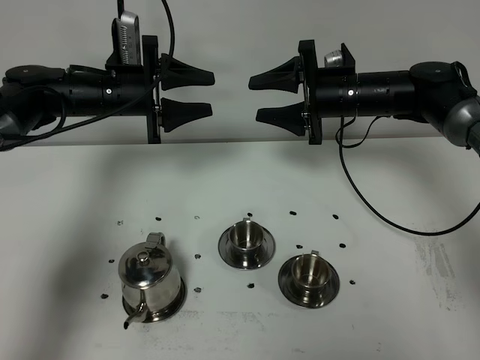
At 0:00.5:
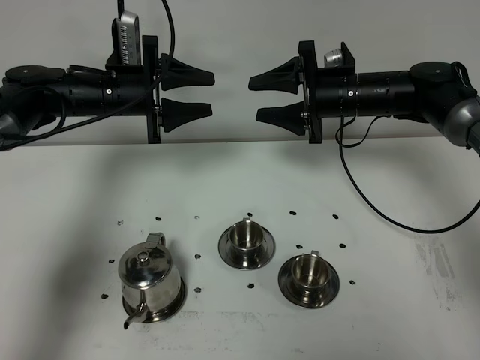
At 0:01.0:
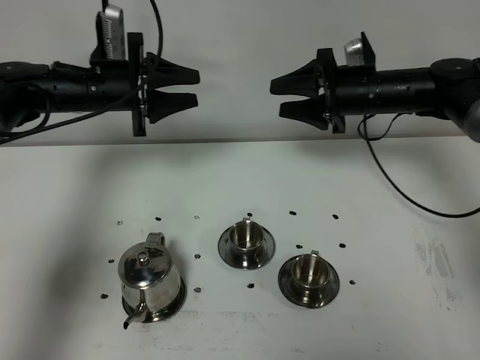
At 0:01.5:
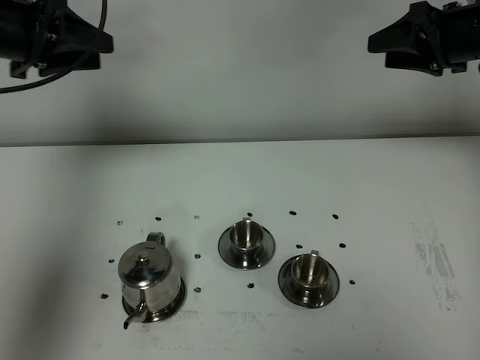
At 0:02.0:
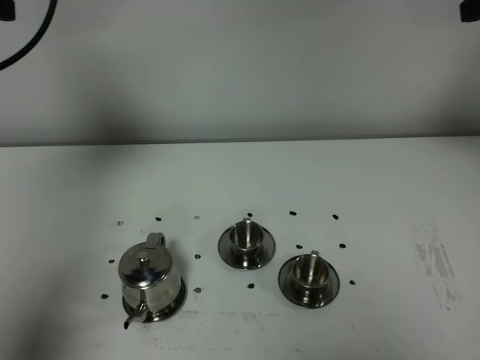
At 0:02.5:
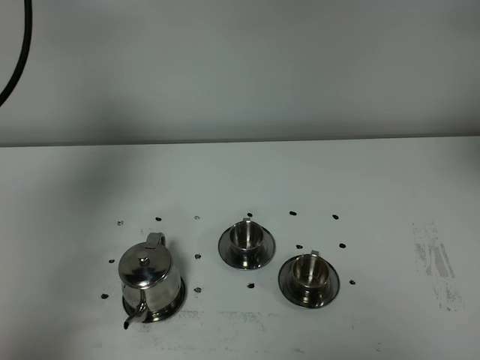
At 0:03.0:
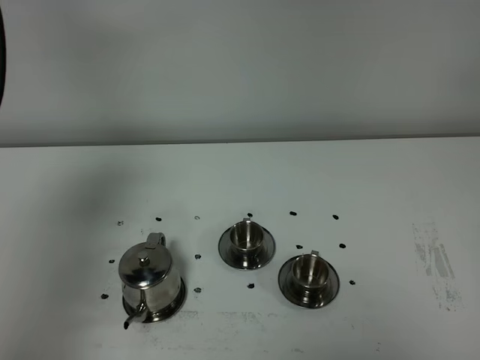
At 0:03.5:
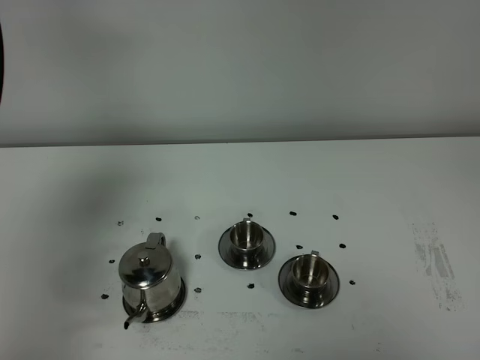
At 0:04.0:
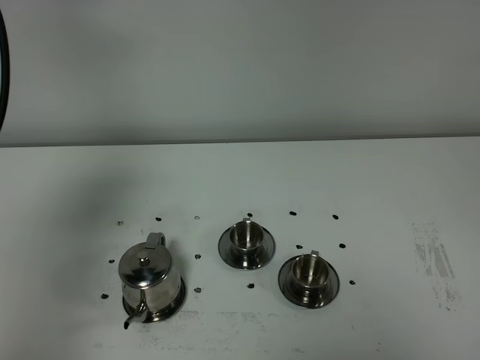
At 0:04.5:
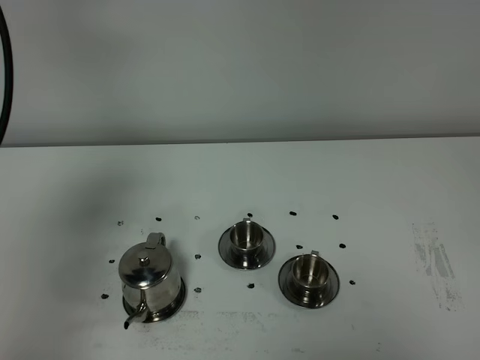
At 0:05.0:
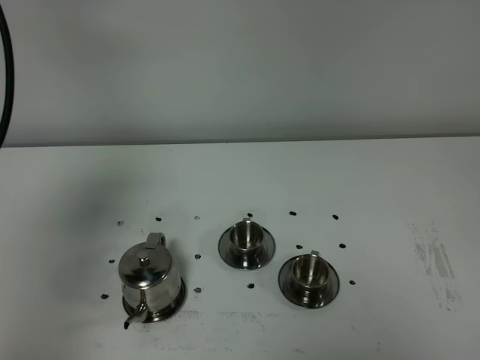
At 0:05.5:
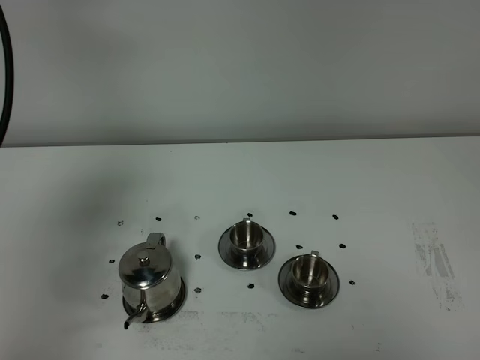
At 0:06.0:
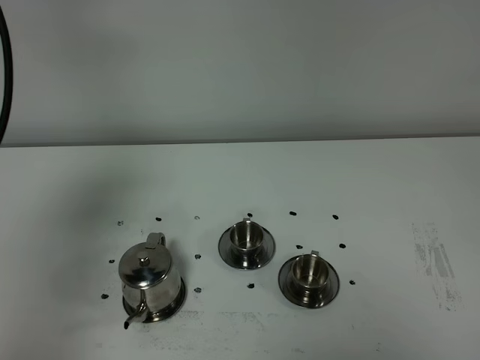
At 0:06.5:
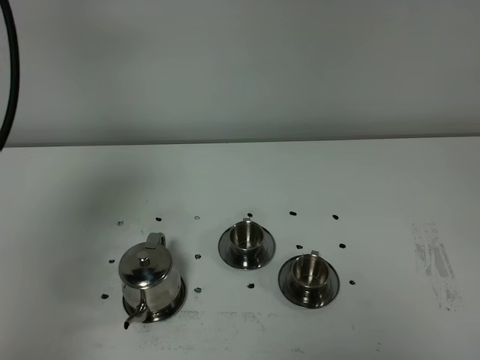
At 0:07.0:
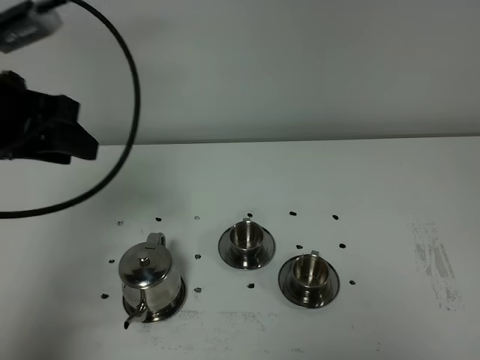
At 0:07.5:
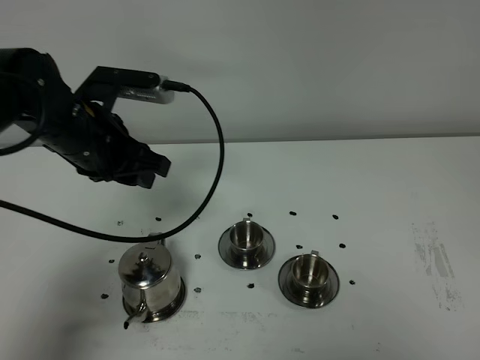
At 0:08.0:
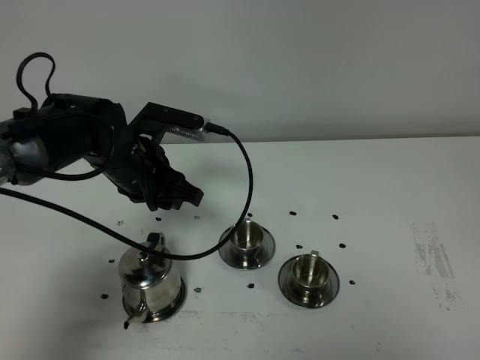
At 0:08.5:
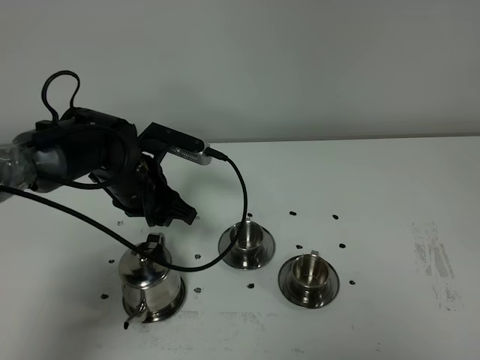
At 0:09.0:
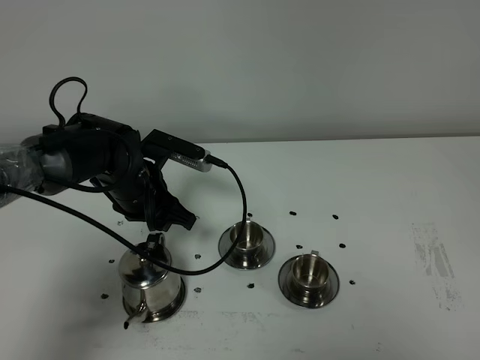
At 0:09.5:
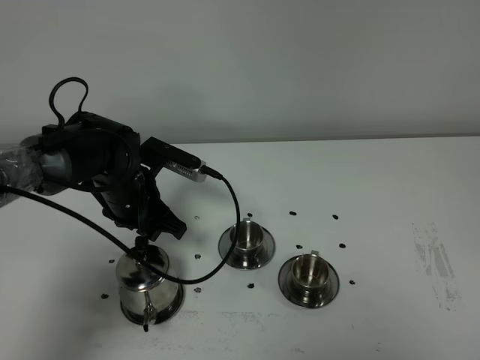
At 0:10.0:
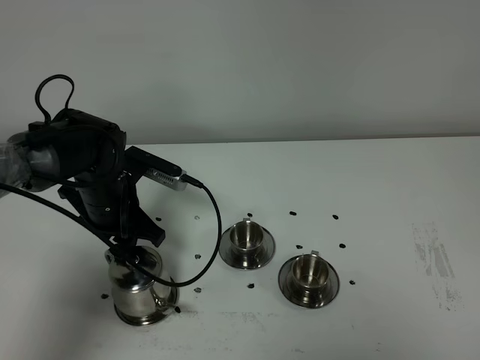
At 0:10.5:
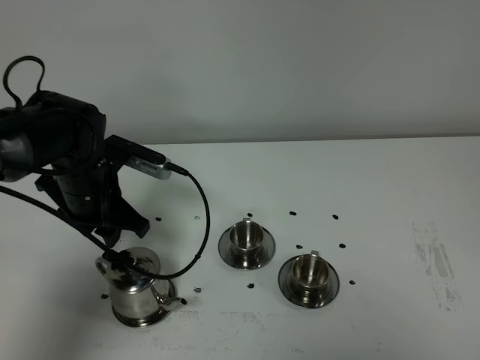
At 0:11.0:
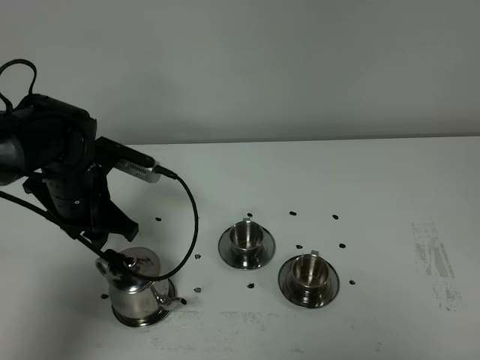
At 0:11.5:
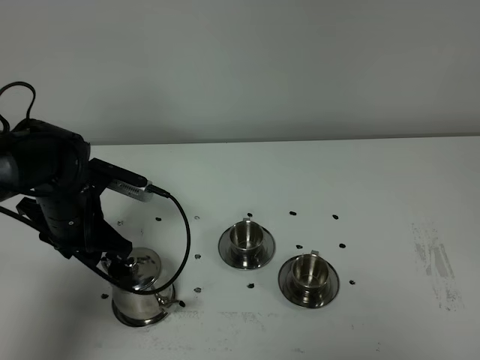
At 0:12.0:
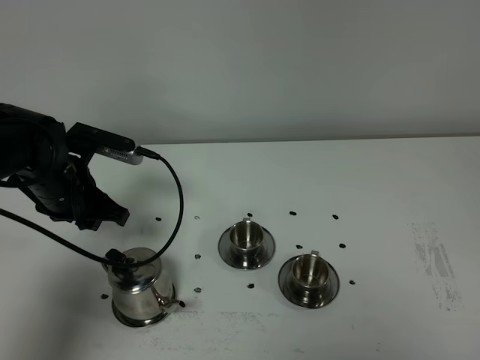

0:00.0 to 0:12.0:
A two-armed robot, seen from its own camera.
Task of the whole recording: grasp the stainless steel teapot and pour the tea into the two stainless steel teacups one by one, put the stainless steel teapot back in its original place.
0:00.0 to 0:02.0: The left gripper travels upward, backward and to the left by roughly 30 cm. The right gripper heads upward, to the right and backward, covering about 30 cm.
0:02.0 to 0:04.0: The left gripper goes about 15 cm backward, while the right gripper shifts roughly 40 cm backward.
0:06.0 to 0:08.0: The left gripper moves downward, forward and to the right, approximately 35 cm.
0:08.0 to 0:10.0: The left gripper changes place by approximately 5 cm.
0:10.0 to 0:12.0: The left gripper shifts by roughly 5 cm.

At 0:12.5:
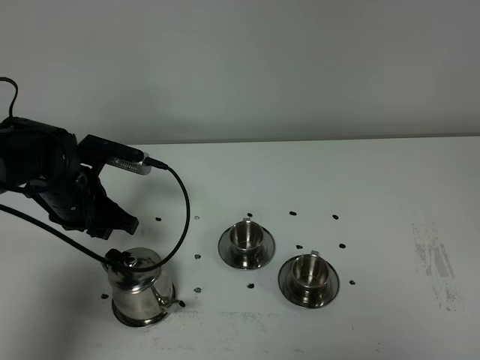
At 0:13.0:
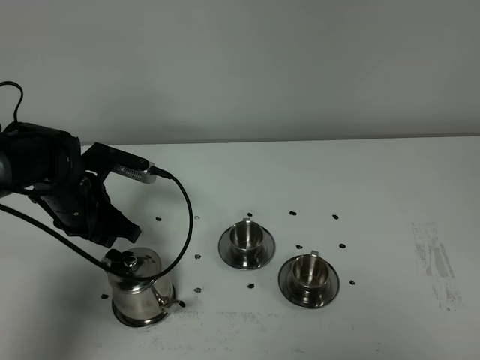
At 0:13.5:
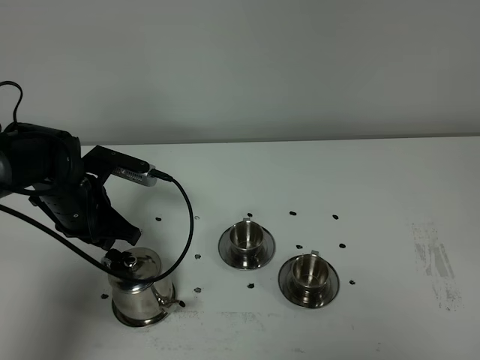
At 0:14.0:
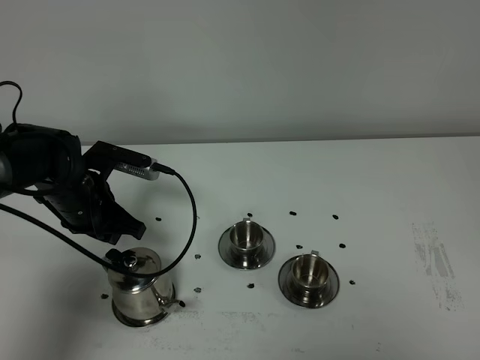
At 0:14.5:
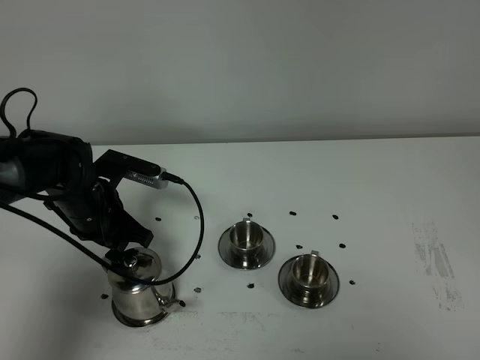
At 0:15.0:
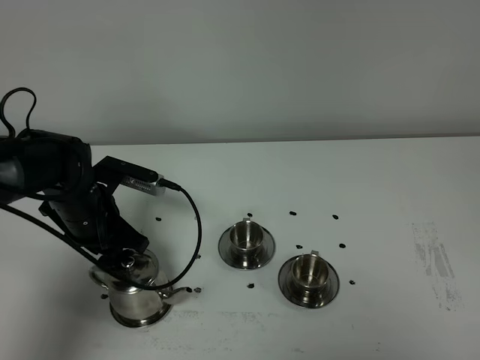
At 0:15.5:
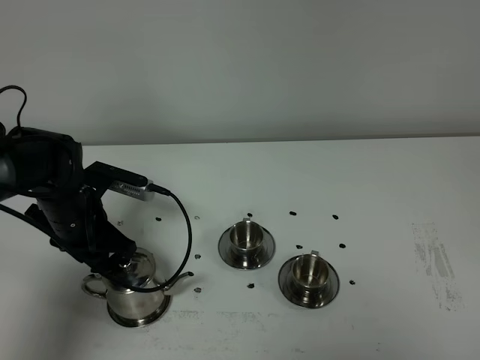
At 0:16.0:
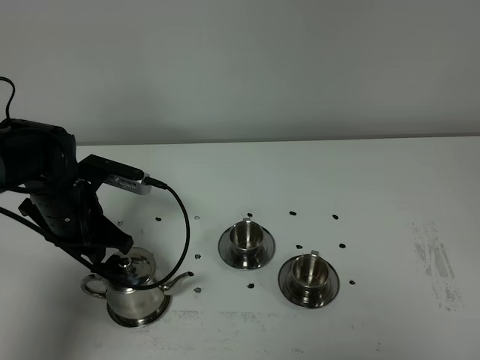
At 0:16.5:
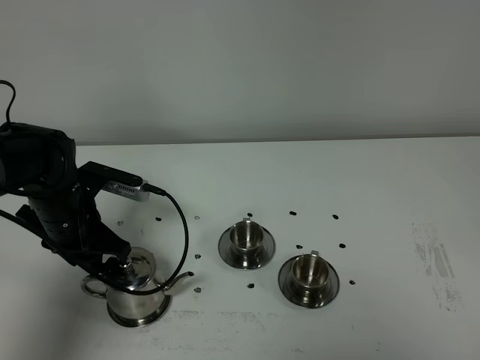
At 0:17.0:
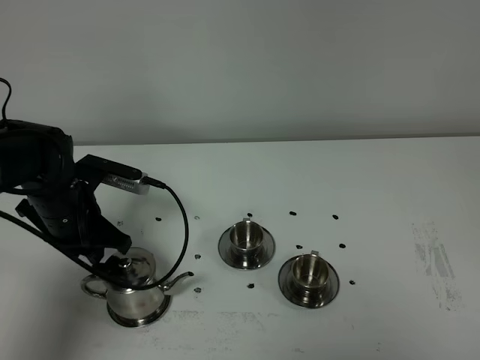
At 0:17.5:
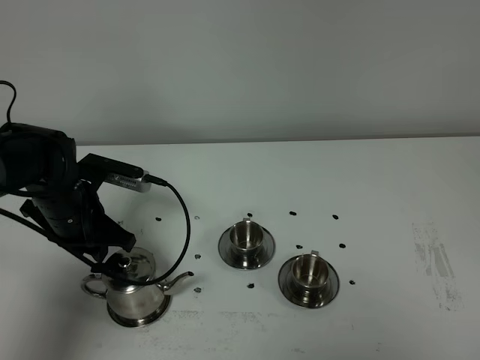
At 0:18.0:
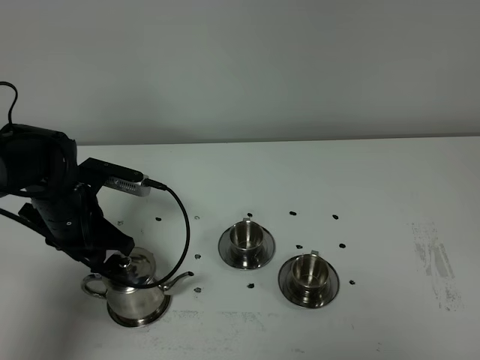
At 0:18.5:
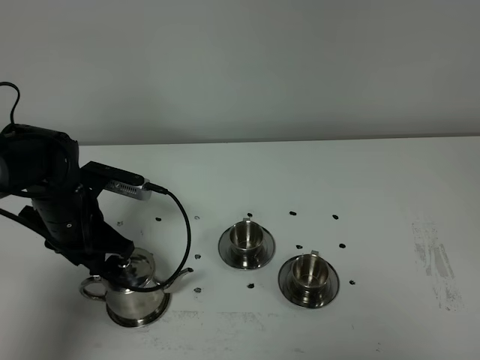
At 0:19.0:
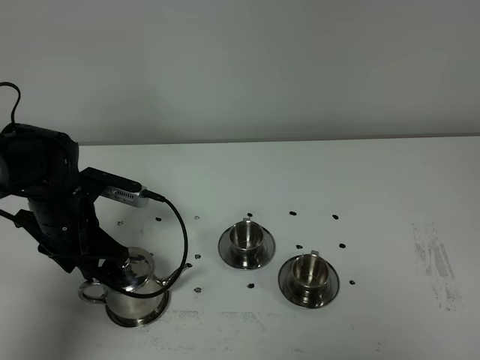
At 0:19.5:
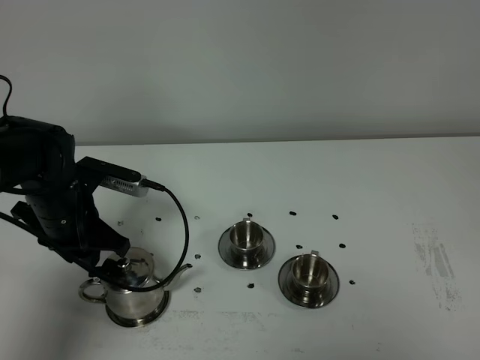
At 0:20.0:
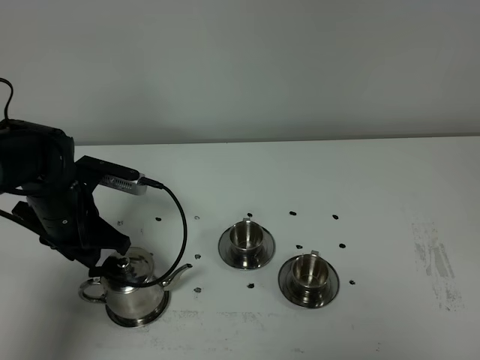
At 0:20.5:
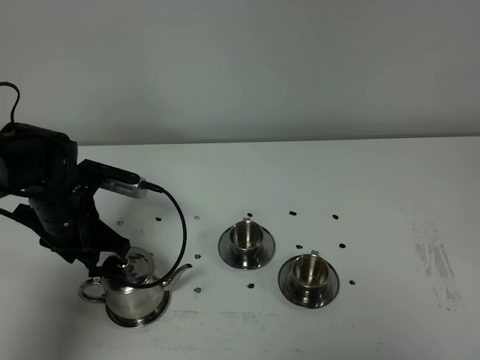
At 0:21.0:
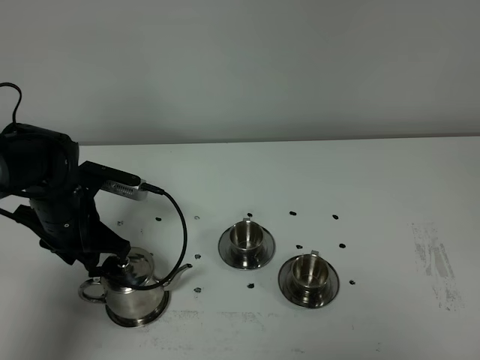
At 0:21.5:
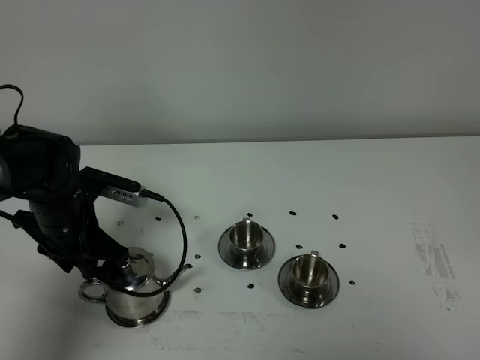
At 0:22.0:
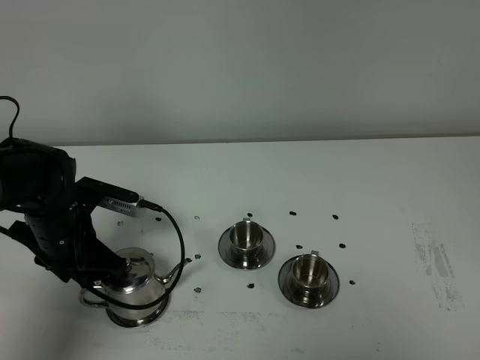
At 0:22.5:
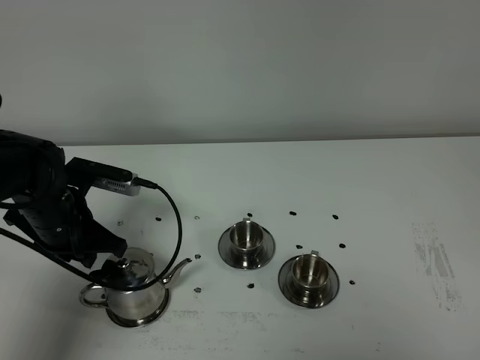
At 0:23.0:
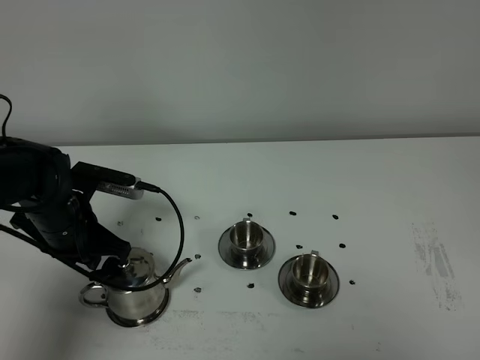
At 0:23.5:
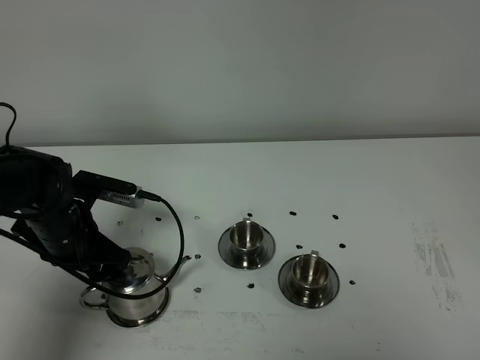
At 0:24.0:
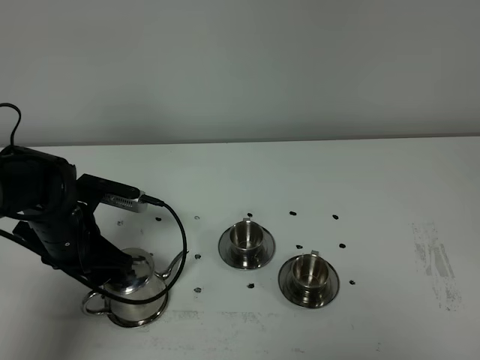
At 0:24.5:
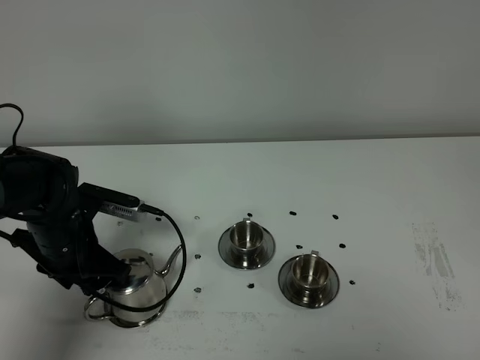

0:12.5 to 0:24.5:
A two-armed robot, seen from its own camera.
Task of the whole recording: grasp the stainless steel teapot and pour the tea into the two stainless steel teacups one by one, put the stainless steel teapot back in its original place.
0:12.5 to 0:24.5: There are only small adjustments of the grippers.

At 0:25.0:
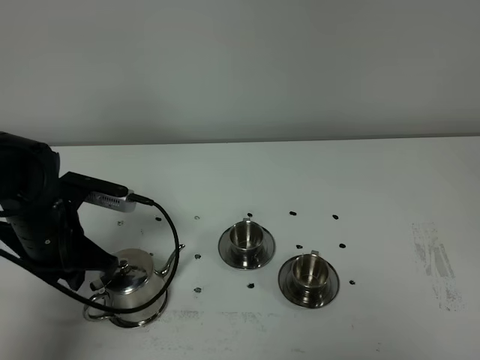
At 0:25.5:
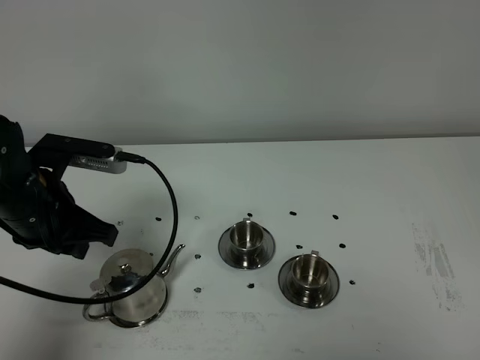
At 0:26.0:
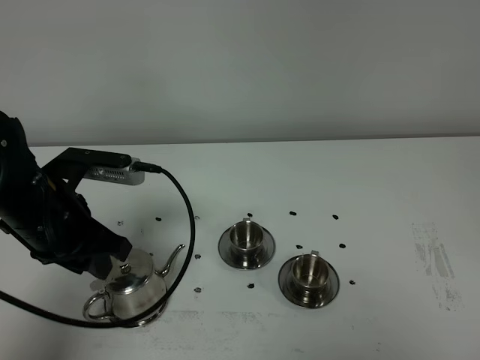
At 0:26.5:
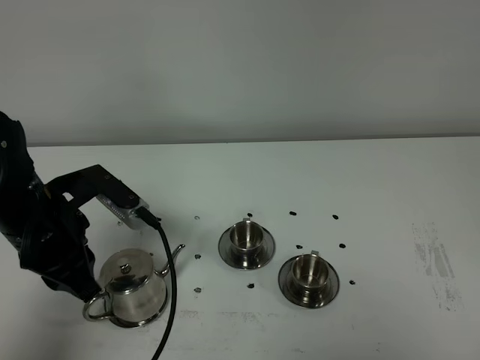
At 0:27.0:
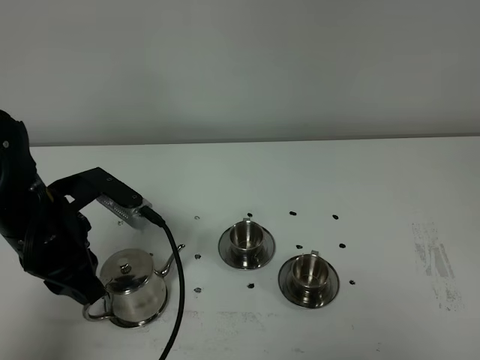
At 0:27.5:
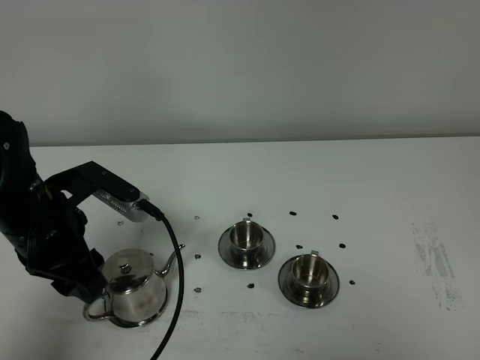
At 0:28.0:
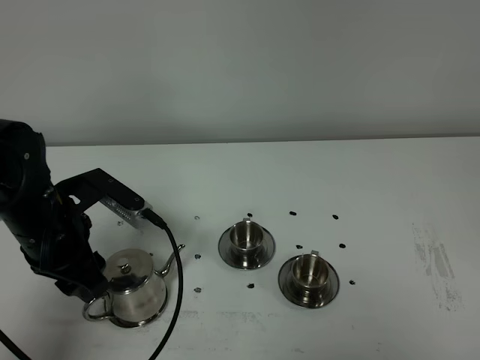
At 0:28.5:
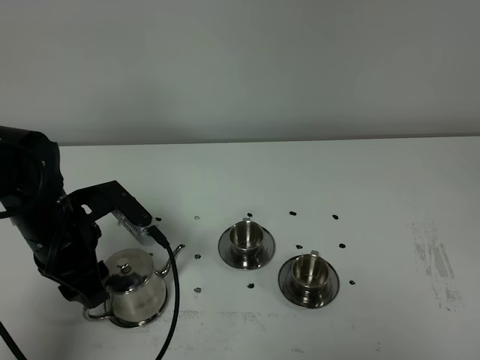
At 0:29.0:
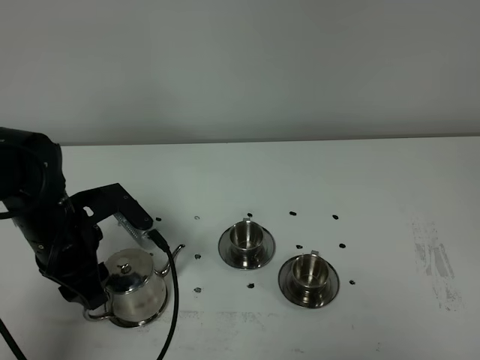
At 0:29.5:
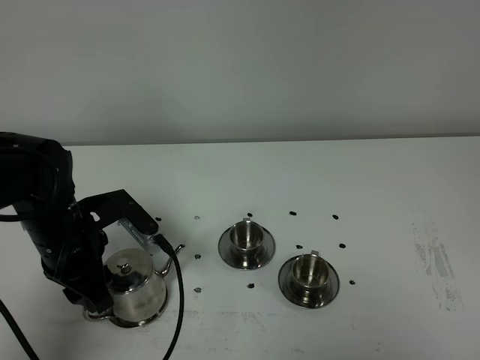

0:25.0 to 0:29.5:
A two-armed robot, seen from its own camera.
Task of the whole recording: grasp the stainless steel teapot and pour the tea into the two stainless steel teacups one by one, put the stainless steel teapot back in its original place.
0:25.0 to 0:27.0: The left gripper moves upward, approximately 5 cm.
0:27.0 to 0:29.5: The left gripper goes some 5 cm downward, and opens up.
